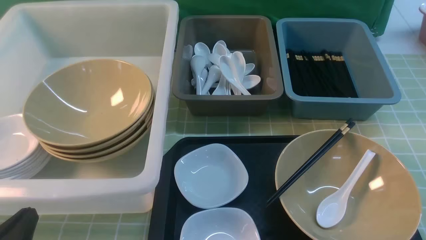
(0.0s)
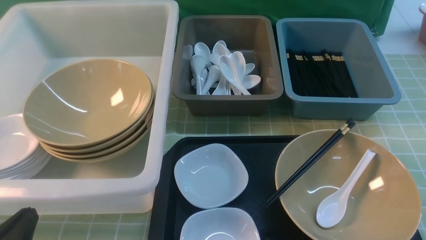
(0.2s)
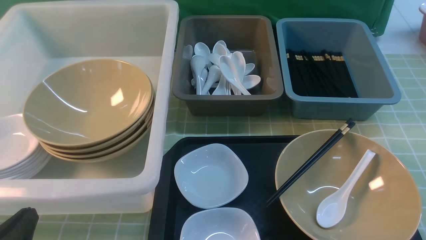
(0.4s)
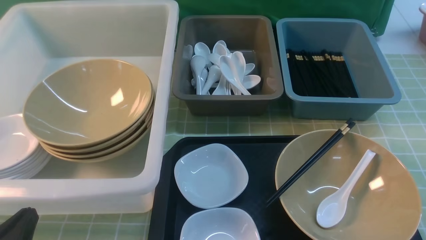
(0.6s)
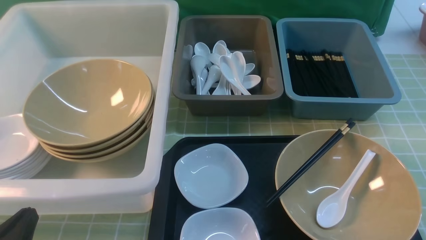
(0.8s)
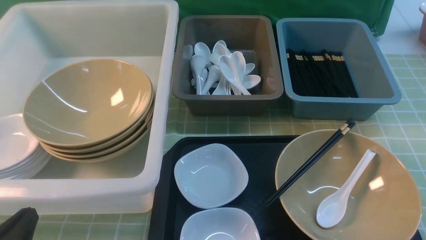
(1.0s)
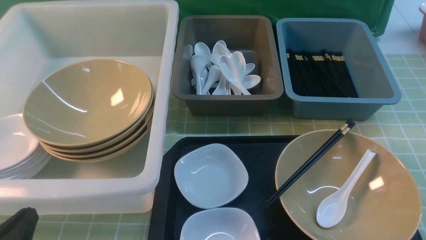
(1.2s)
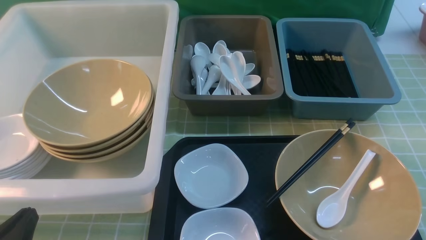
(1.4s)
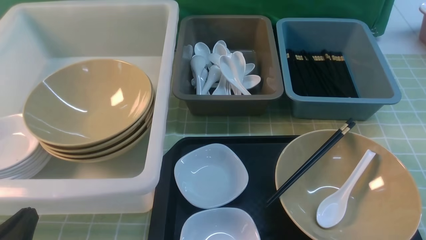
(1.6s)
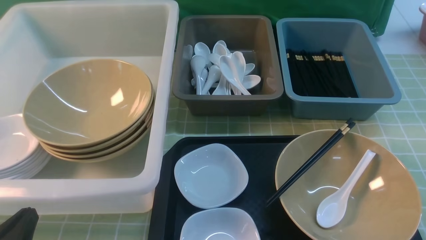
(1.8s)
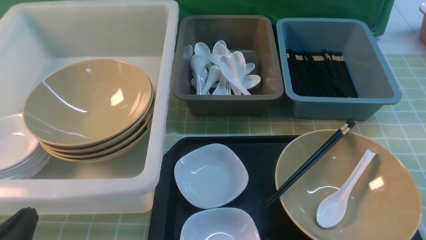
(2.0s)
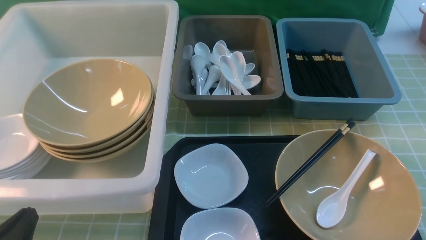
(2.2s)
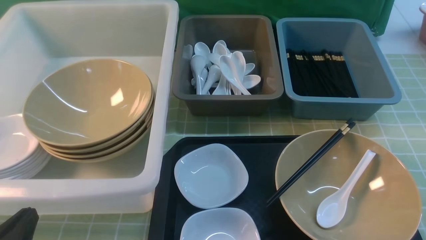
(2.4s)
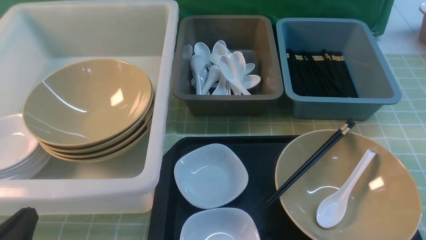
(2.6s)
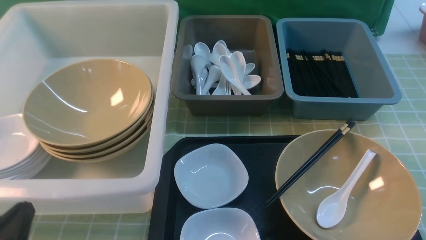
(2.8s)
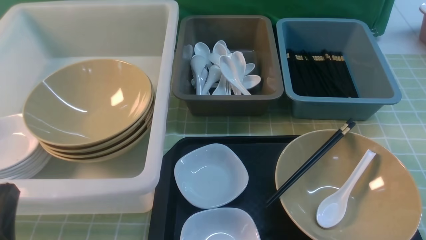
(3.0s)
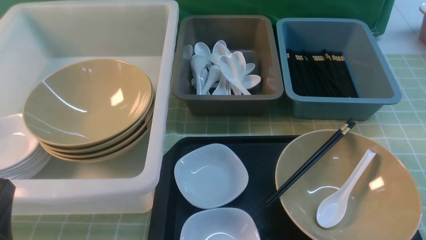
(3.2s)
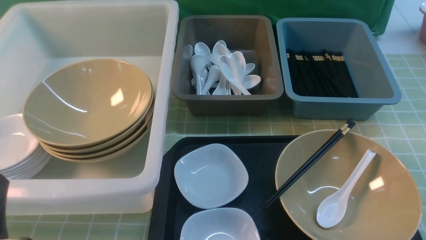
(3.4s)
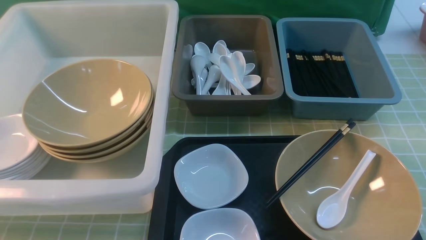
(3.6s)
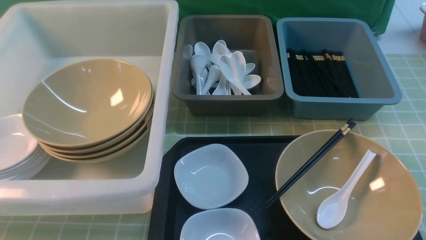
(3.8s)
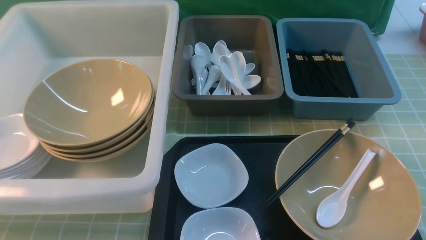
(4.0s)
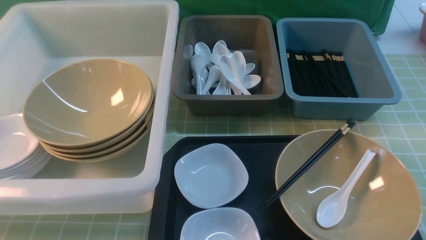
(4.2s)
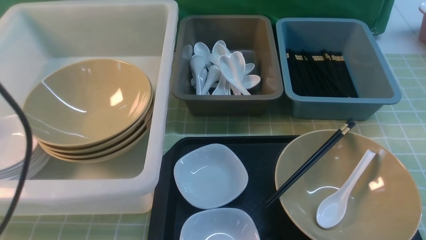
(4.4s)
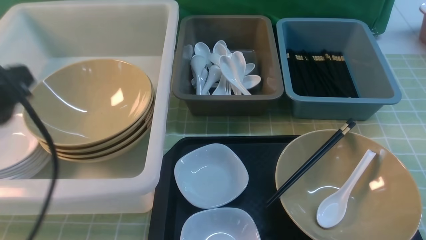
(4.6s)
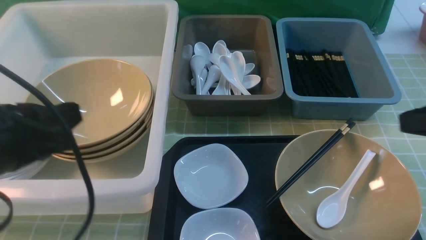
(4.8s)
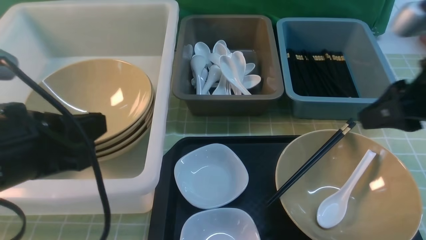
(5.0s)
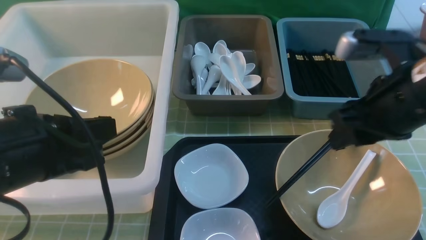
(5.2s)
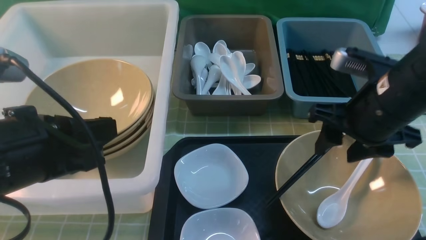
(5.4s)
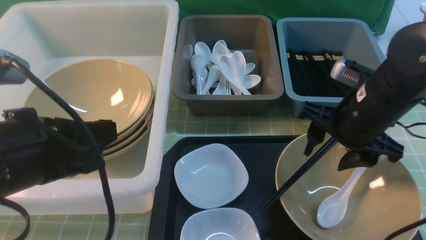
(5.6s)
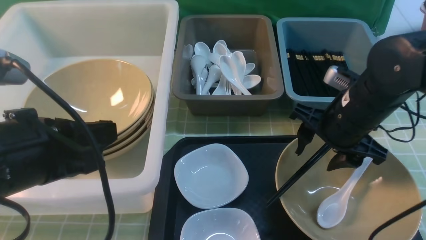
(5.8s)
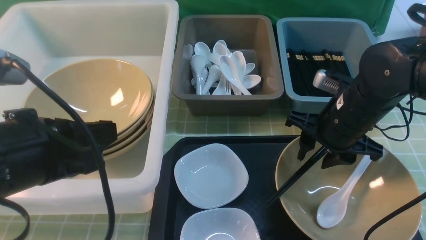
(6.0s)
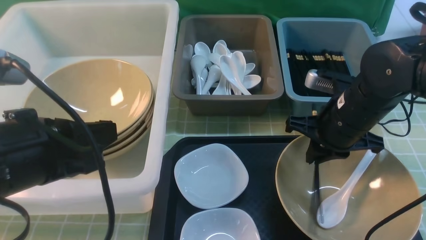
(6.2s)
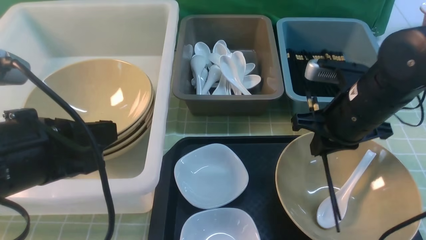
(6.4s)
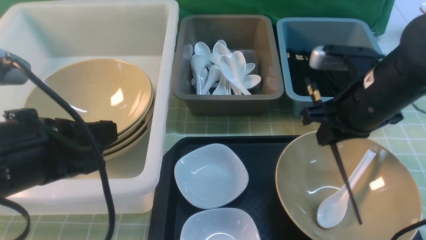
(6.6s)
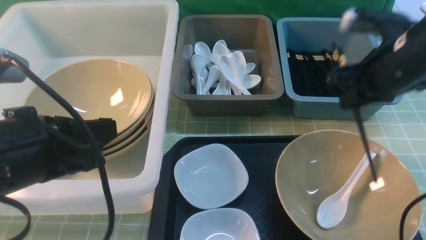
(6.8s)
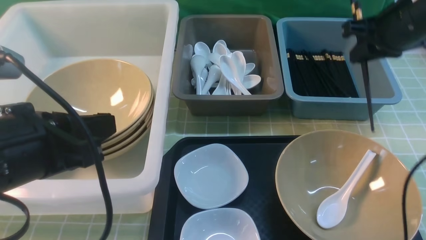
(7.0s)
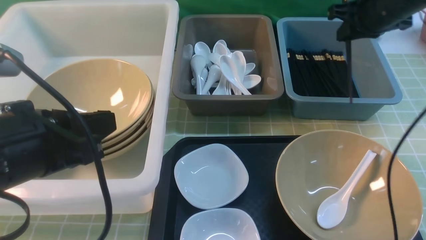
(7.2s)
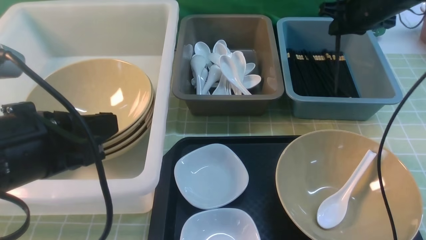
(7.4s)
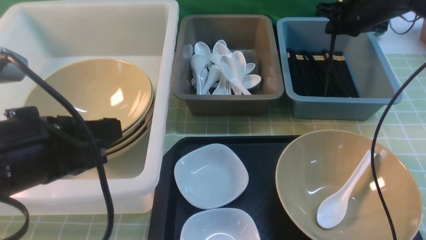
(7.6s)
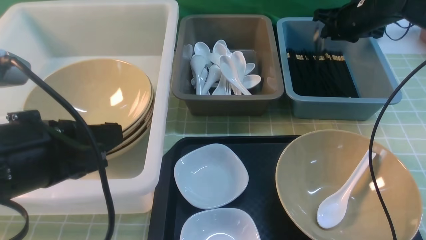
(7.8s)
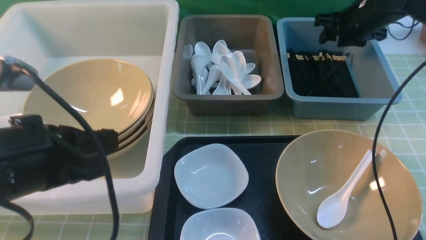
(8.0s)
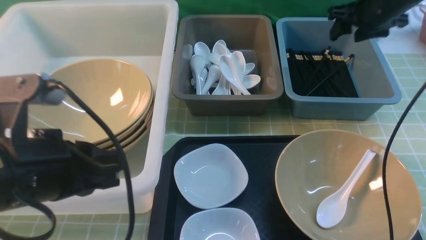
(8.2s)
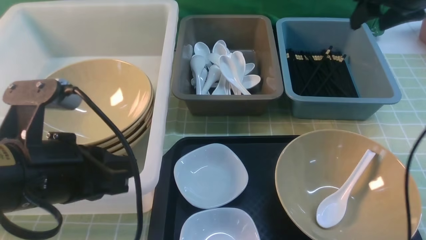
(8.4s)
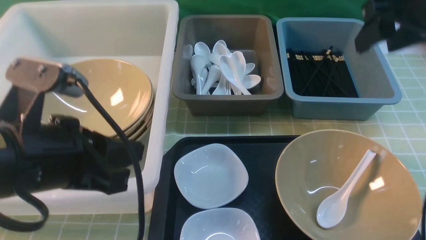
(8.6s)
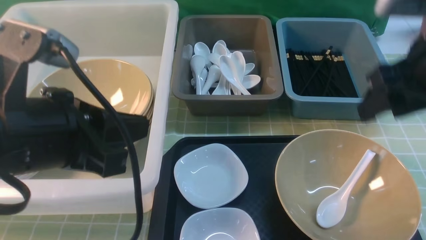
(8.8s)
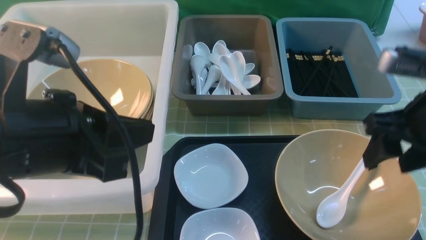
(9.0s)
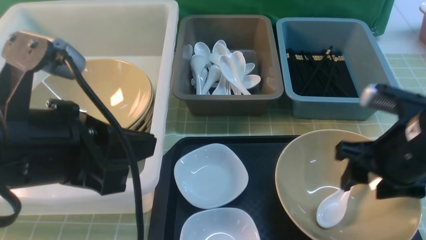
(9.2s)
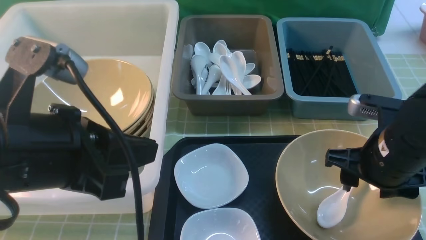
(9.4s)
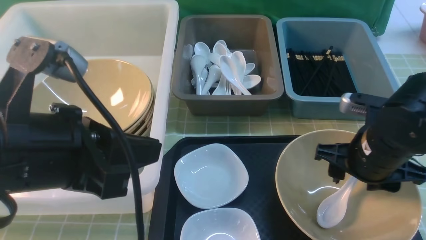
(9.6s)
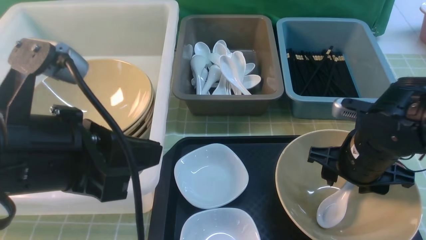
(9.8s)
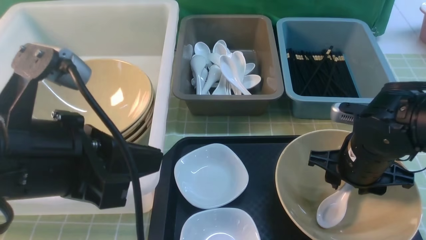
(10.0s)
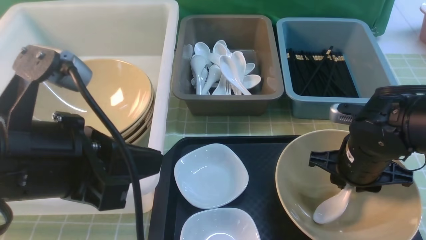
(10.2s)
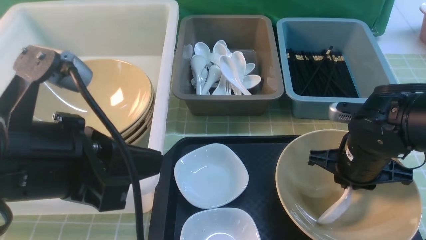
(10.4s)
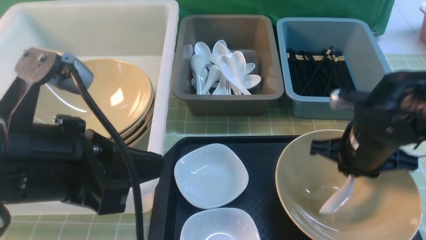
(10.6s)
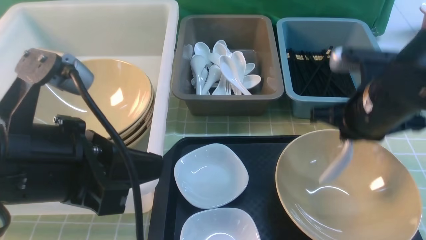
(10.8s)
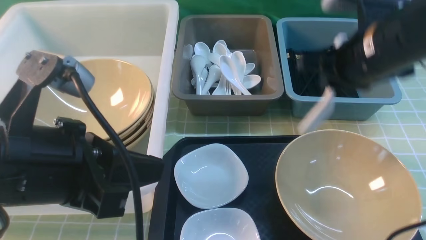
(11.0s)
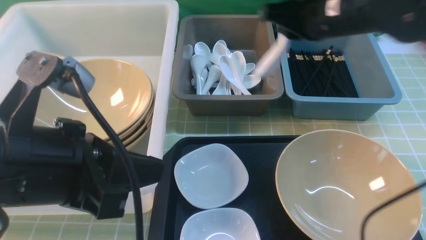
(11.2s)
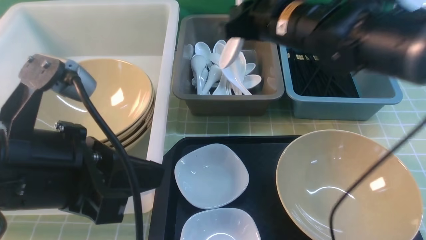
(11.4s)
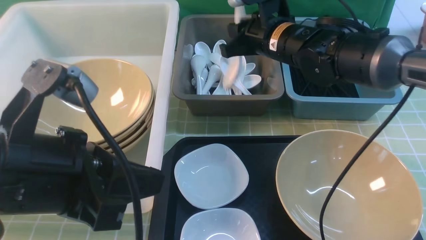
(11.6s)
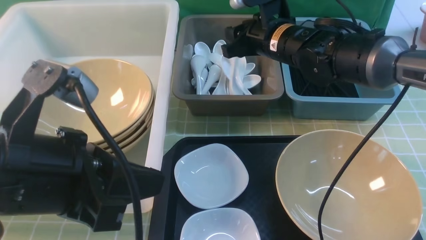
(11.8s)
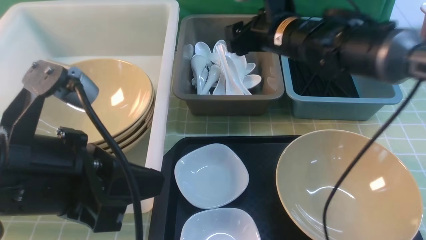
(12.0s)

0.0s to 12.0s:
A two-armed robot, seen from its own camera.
Task of the whole recording: on green table put chopsticks spoon bowls plates into blue grey white boxes.
Step, 0.0s to 6.4s: use the right arm to grab the chopsticks.
Step, 6.6s to 8.2s: use the right arm to put the chopsticks into the small storage box on the right.
Step, 8.4s to 10.6s: use the right arm to grab the soup spoon in the middle.
0.0s to 1.6s: The two grippers keep their place.
1.6s to 3.0s: The grippers move only a little.
3.0s to 4.4s: The left gripper shifts approximately 20 cm upward and forward.
4.4s to 6.0s: The left gripper shifts roughly 5 cm to the right, while the right gripper travels forward, downward and to the left by roughly 25 cm, and opens, then closes once more.
6.0s to 7.6s: The right gripper shifts approximately 20 cm forward and to the right, and closes.
7.6s to 9.0s: The right gripper moves backward, roughly 25 cm, and opens its fingers.
9.0s to 10.4s: The right gripper travels downward by roughly 10 cm, and closes.
10.4s to 12.0s: The right gripper heads forward, upward and to the left, covering about 20 cm, and opens its fingers.

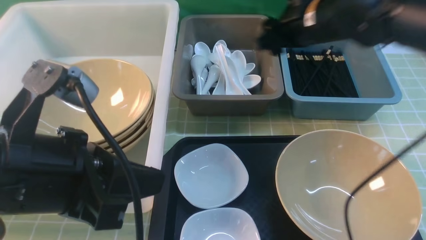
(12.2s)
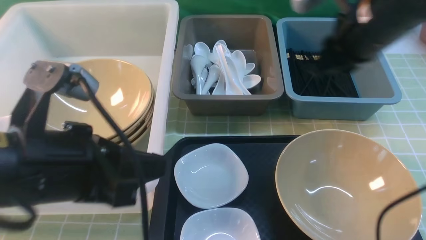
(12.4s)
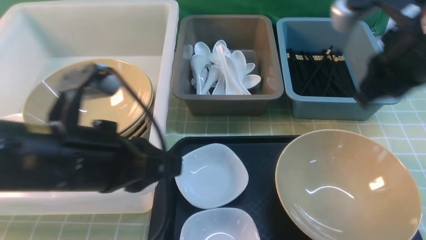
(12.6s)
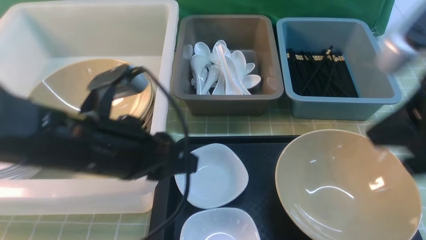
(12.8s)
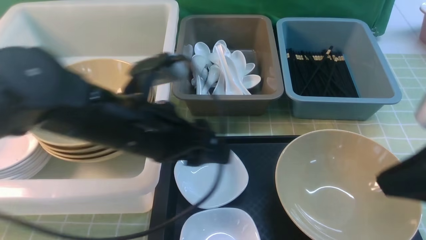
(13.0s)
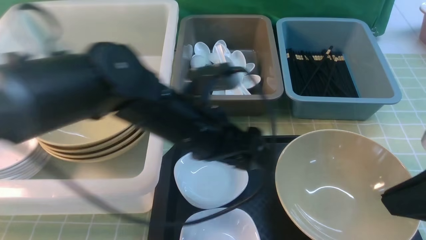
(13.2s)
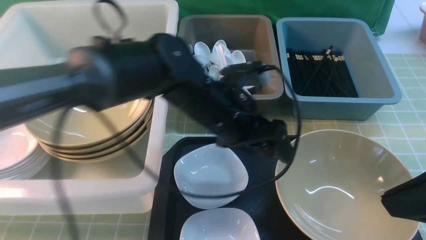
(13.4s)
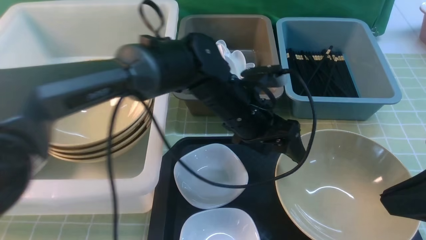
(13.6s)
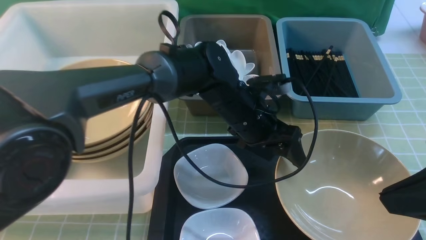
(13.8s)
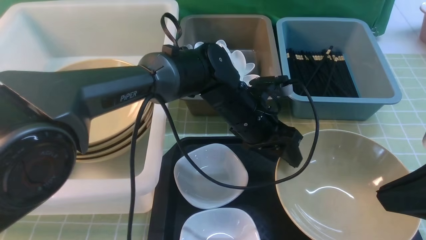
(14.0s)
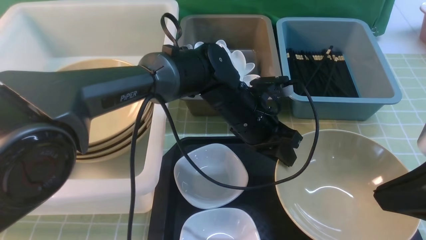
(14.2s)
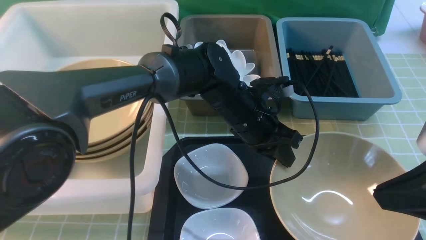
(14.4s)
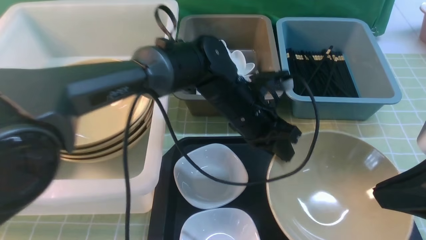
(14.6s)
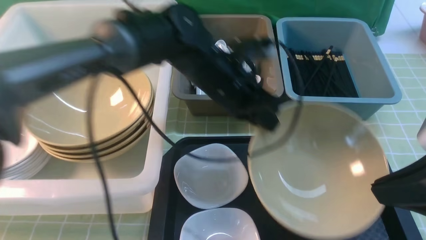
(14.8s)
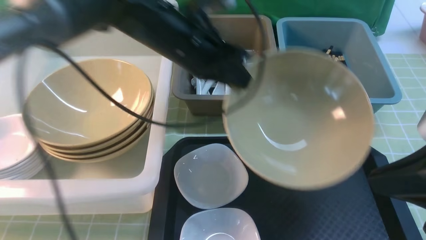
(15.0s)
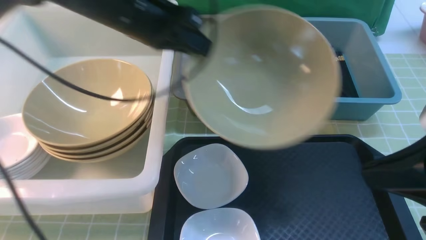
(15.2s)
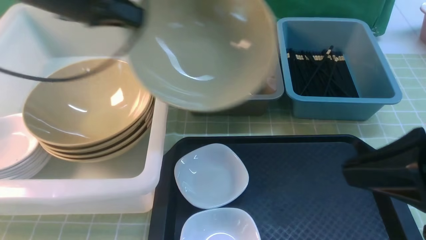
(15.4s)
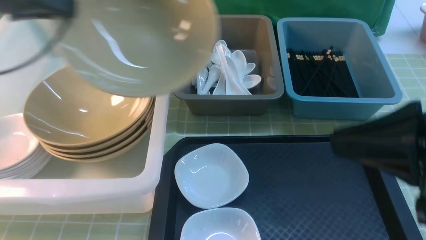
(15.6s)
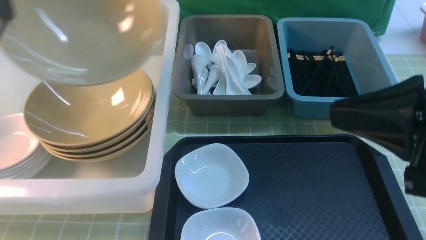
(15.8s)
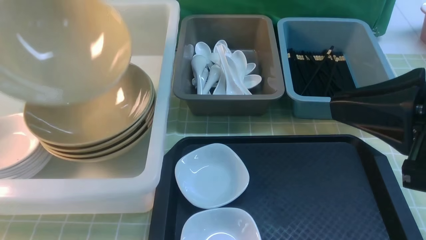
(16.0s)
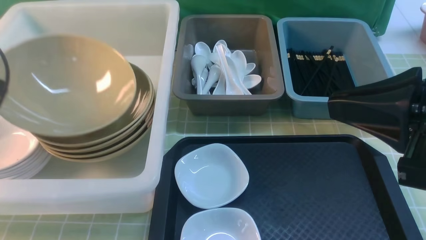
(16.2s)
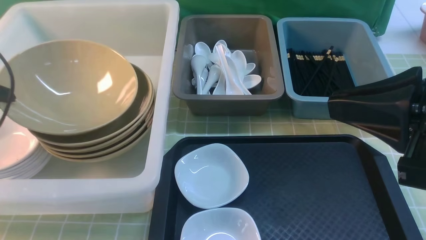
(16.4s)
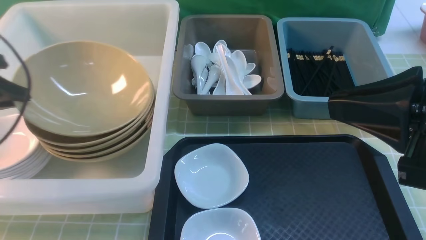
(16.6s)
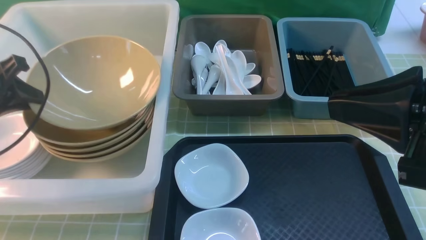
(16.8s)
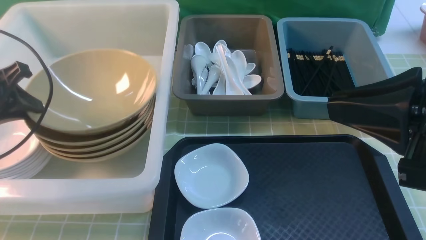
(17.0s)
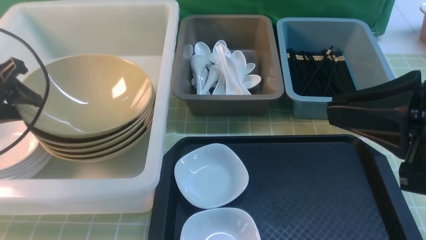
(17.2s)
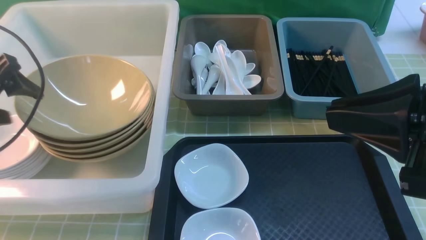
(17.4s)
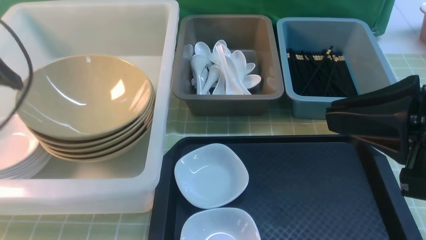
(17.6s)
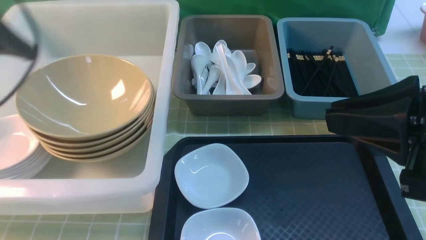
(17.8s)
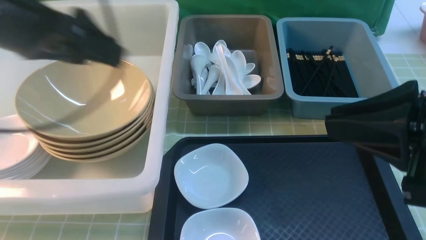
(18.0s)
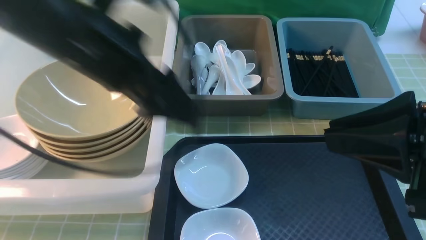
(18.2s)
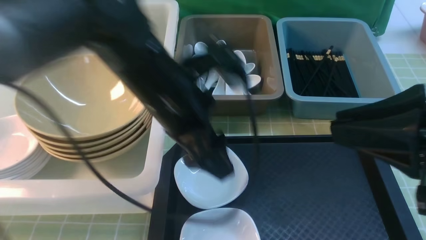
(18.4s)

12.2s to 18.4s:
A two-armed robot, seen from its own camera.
Task of the whole recording: on green table put chopsticks spoon bowls plates into blue grey white boxes.
Step, 12.2s to 14.8s: use the left arm to grab the yellow noodle bowl on the left.
Step, 15.0s to 17.4s: use the left arm to put the noodle bowl into the large storage box on the left.
12.2s to 13.8s: The left gripper moves to the right, forward and downward, about 30 cm, and opens up. The right gripper is displaced backward by approximately 25 cm, and closes.
13.8s to 15.4s: The left gripper goes some 30 cm to the left and upward, and closes up.
15.4s to 16.8s: The left gripper is displaced to the left, downward and backward by roughly 15 cm.
16.8s to 18.4s: The left gripper is displaced to the right by approximately 30 cm, and opens.
